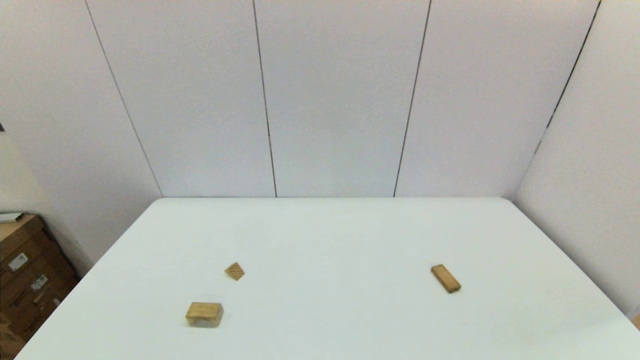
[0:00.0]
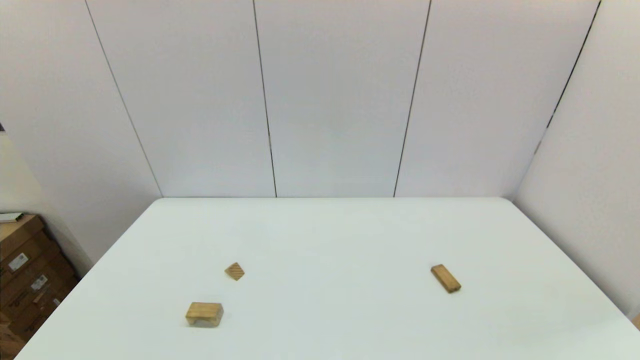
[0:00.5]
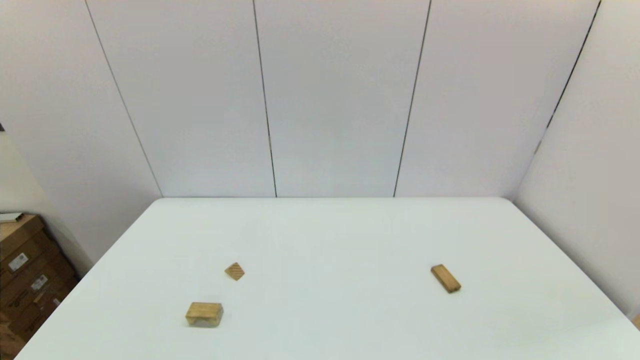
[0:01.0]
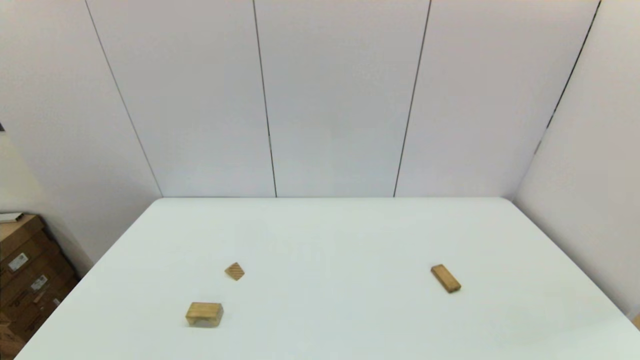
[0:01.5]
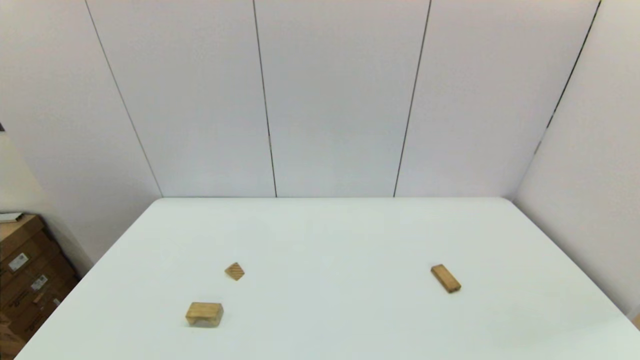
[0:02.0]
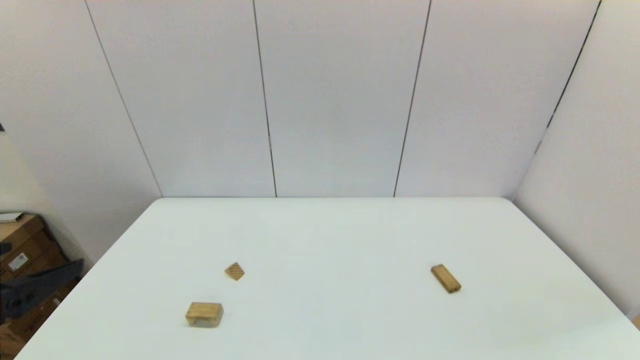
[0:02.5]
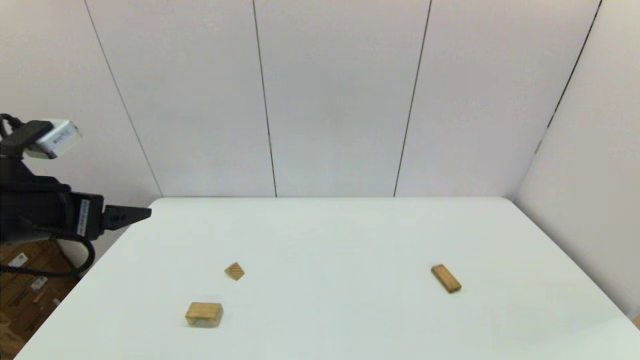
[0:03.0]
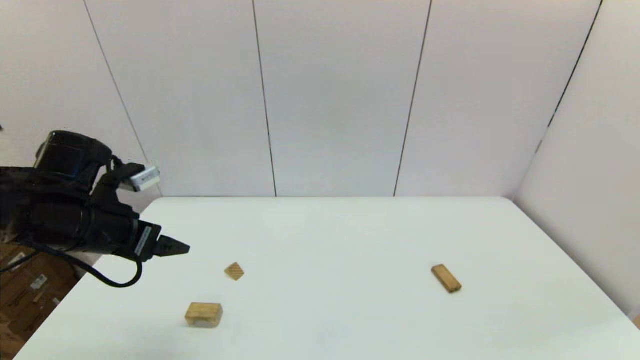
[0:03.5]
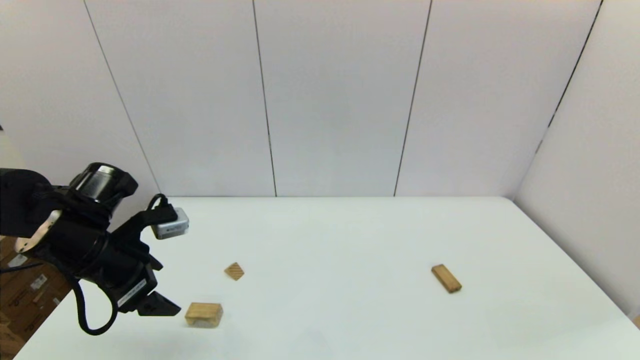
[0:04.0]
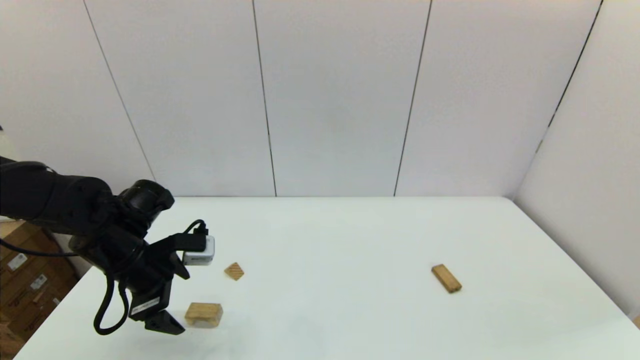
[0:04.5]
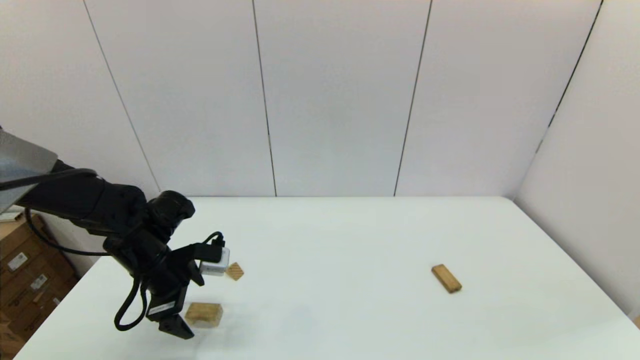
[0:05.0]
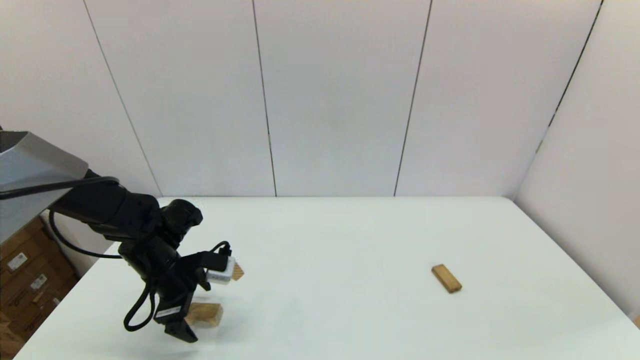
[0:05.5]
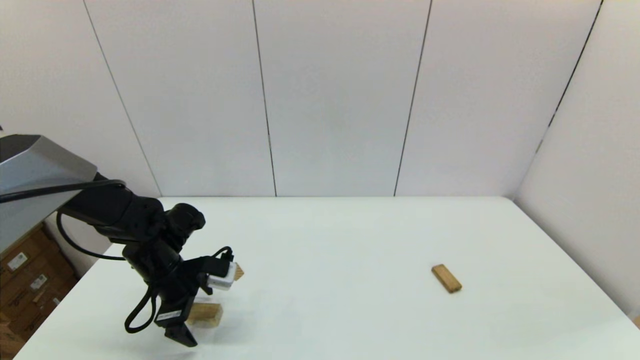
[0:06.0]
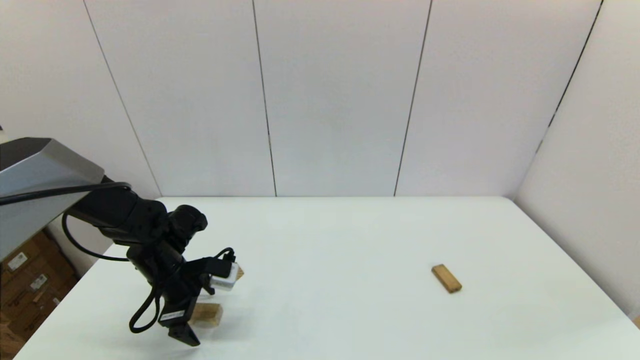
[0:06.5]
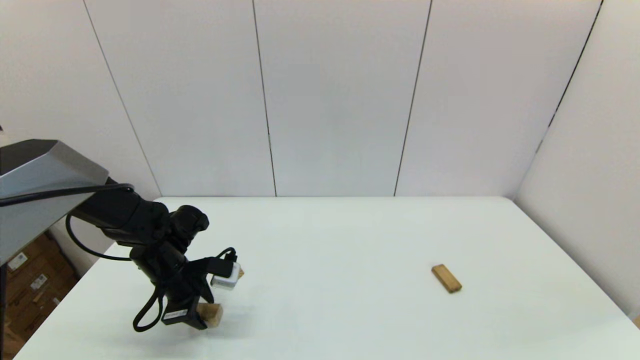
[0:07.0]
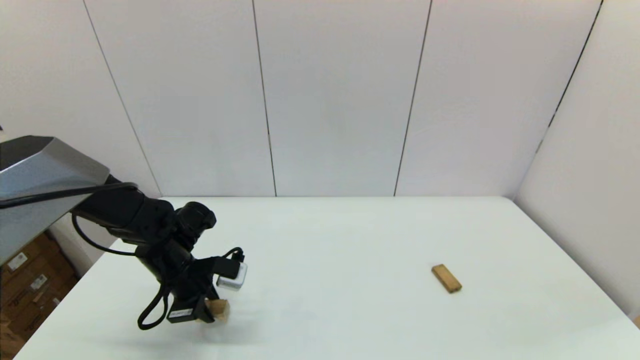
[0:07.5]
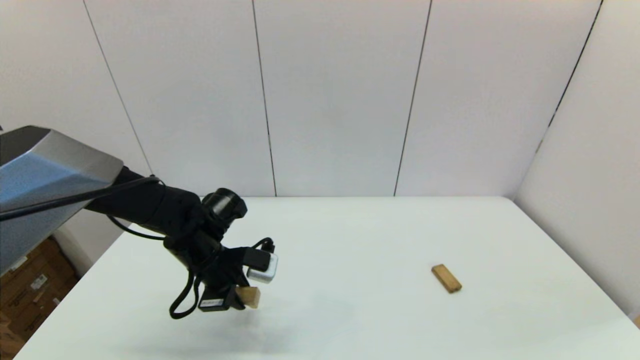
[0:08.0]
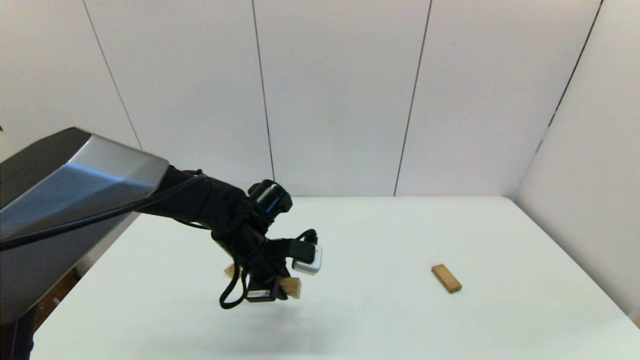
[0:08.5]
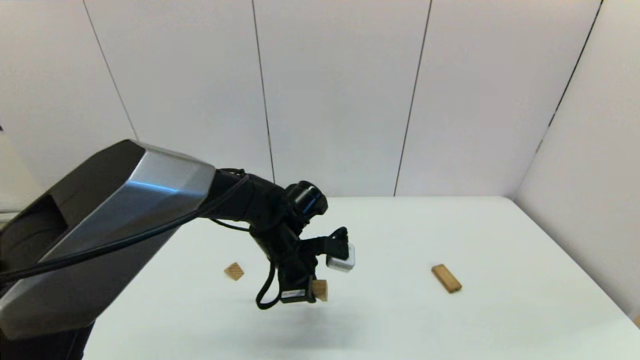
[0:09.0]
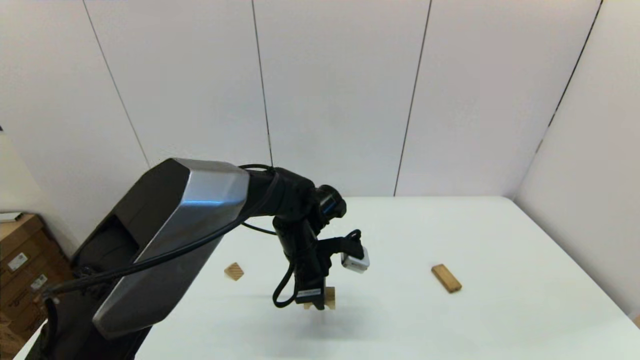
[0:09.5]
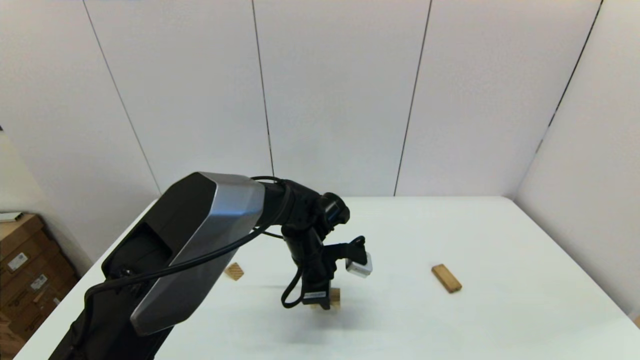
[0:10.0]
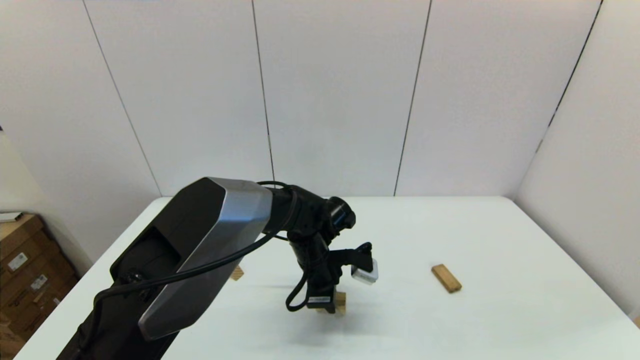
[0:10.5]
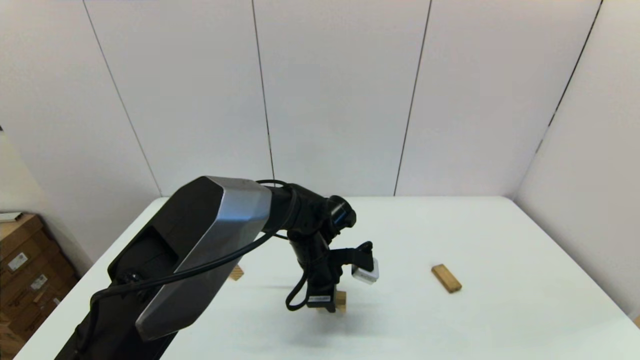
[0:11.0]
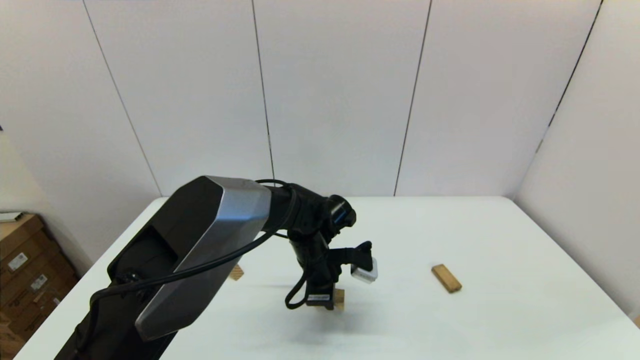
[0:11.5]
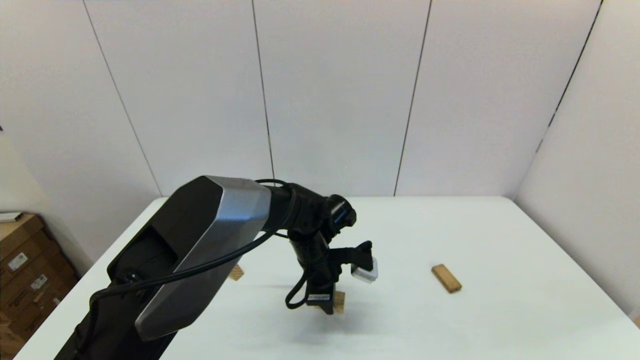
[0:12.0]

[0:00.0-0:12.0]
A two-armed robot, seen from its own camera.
Task of the whole recording: place the arched building blocks in the center of the table, set up the rectangular building blocks, and then set up the triangular building blocks.
Step, 0:02.5 to 0:07.0: Grasp the arch-shaped block with the left gripper.
Step, 0:07.5 to 0:12.0: Place the arch-shaped block in the center of view with the left gripper.
0:02.0 to 0:04.0: The left gripper moves forward, roughly 25 cm.
0:04.0 to 0:06.0: The left gripper is displaced downward and forward by roughly 10 cm.
0:06.0 to 0:08.0: The left gripper travels to the right by roughly 10 cm, and closes up.
0:08.0 to 0:10.0: The left gripper moves to the right, approximately 15 cm.
0:10.0 to 0:12.0: The two grippers keep their place.

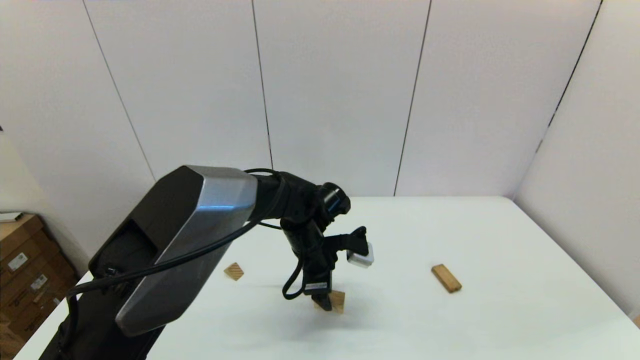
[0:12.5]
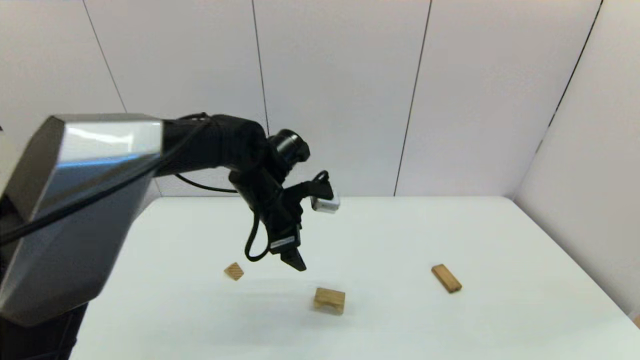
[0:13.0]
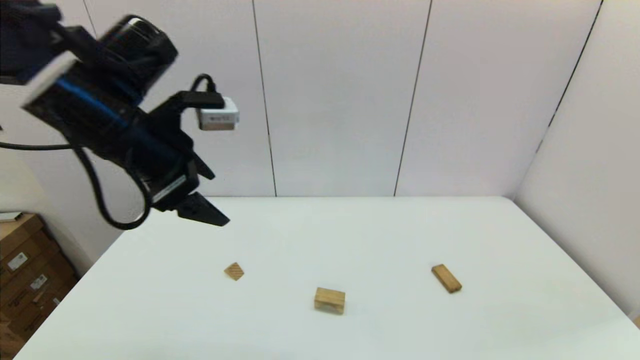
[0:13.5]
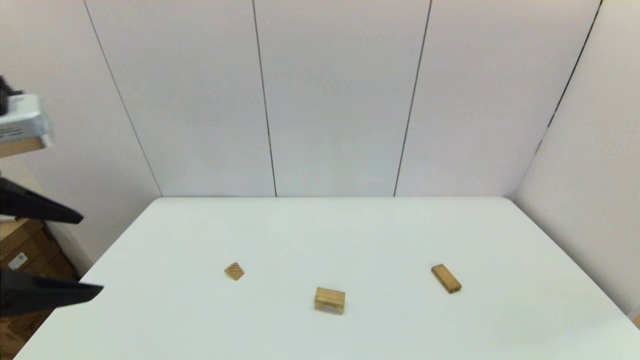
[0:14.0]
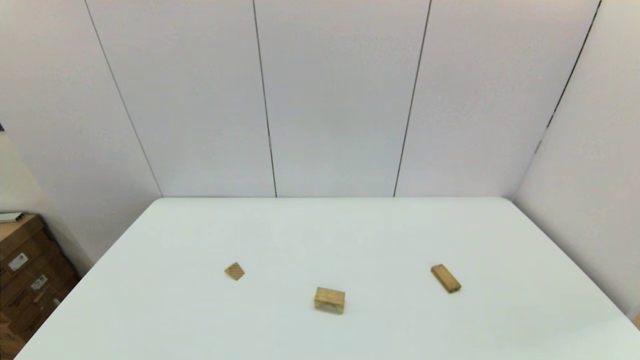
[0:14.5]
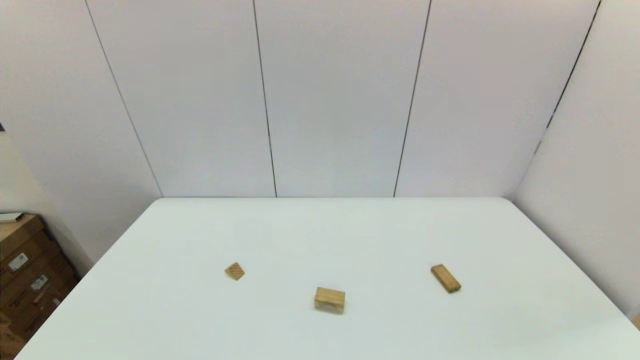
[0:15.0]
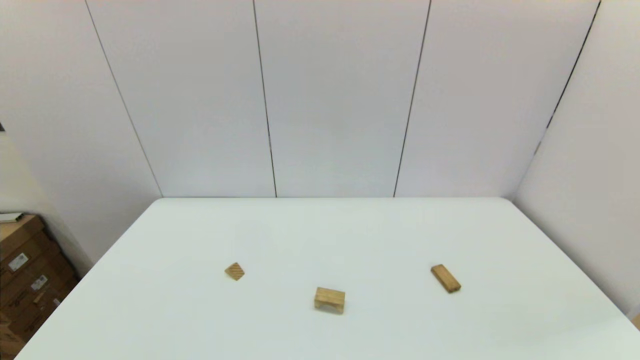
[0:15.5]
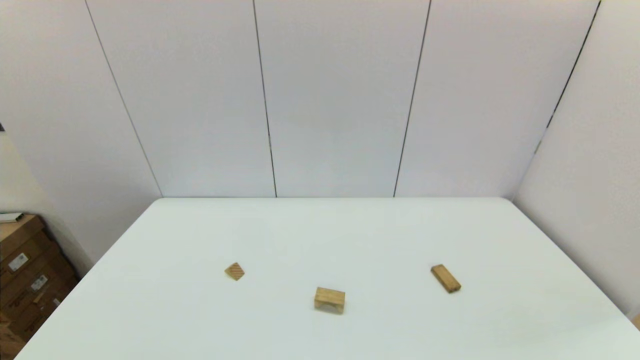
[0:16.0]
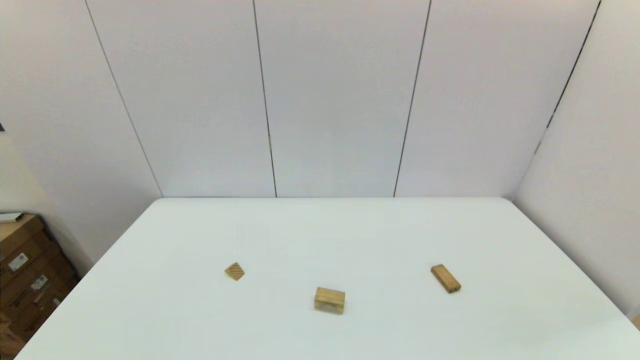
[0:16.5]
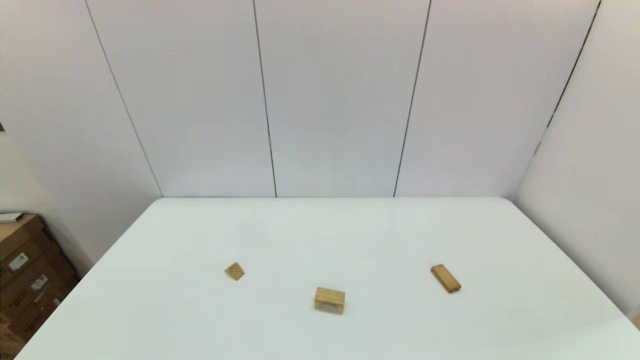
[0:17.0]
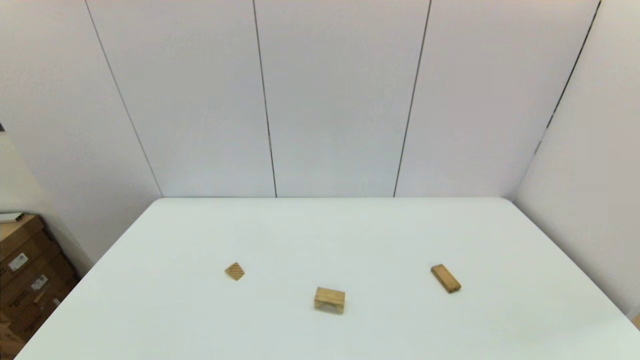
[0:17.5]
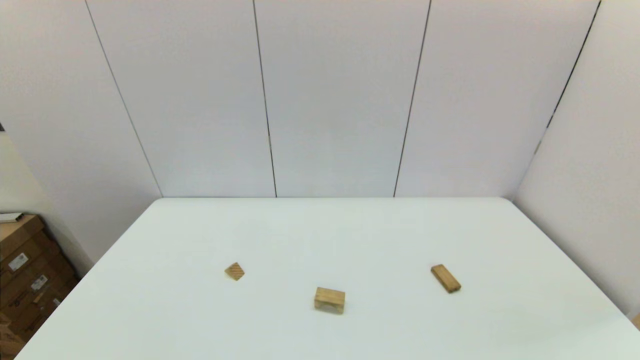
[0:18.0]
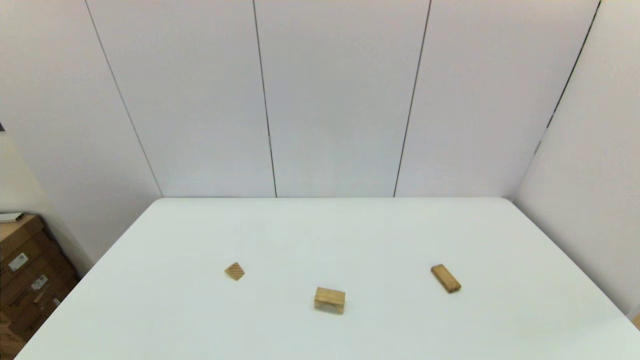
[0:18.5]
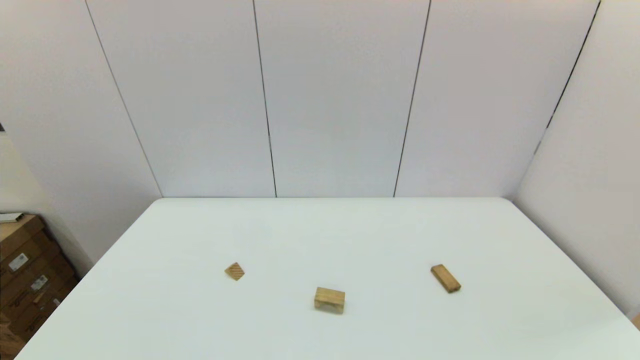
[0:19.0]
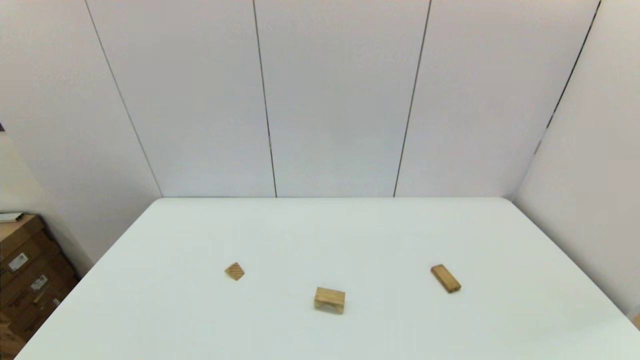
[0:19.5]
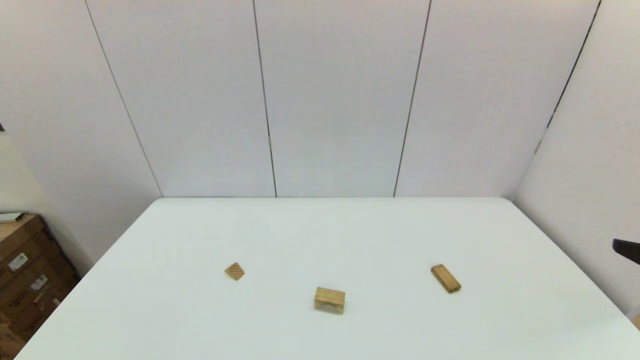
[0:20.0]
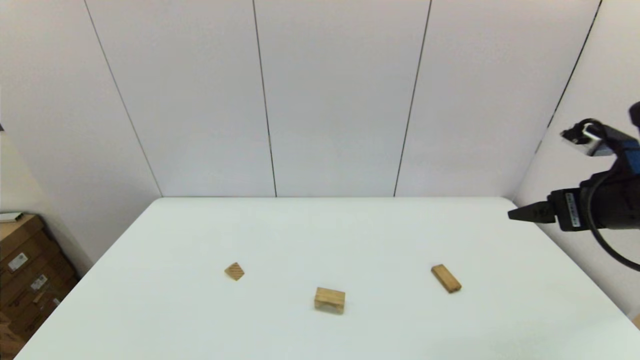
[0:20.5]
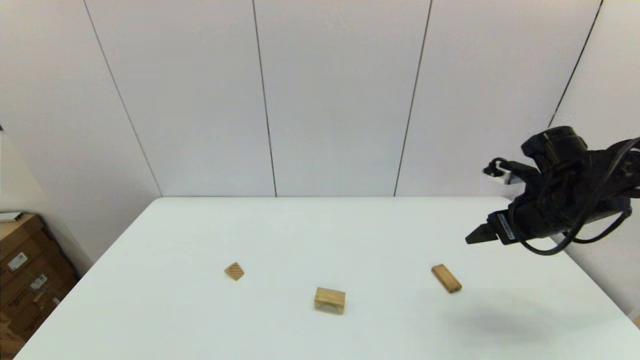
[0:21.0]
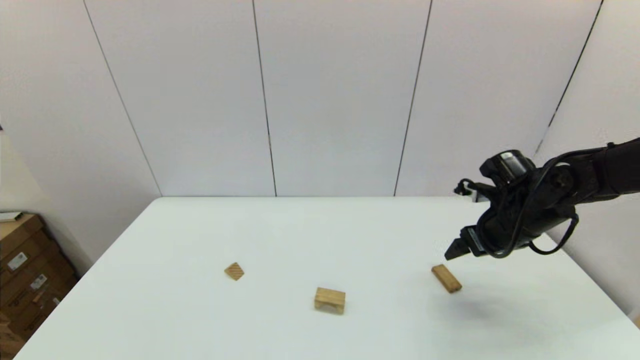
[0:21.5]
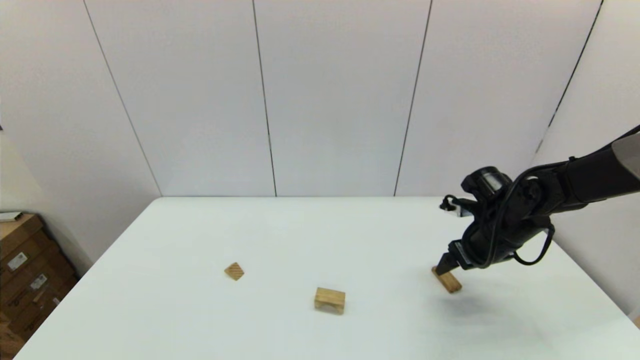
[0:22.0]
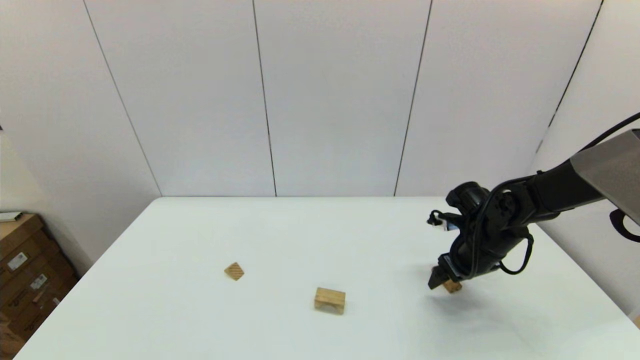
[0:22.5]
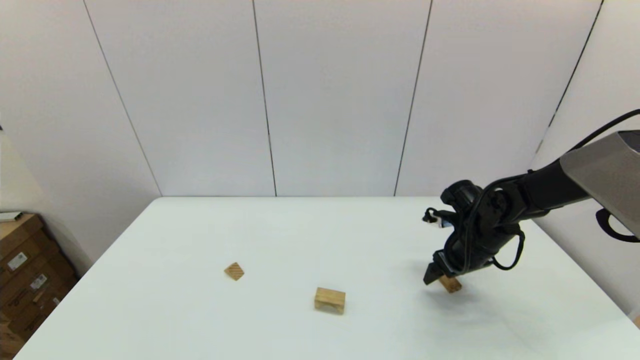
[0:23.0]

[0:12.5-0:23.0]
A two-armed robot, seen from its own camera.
Task of the whole recording: place the arched building blocks in the center of the table, set up the rectangular building blocks, and then set up the triangular building blocks.
0:12.5 to 0:14.5: The left gripper heads backward, to the left and upward, covering about 50 cm.
0:19.0 to 0:21.0: The right gripper heads forward, covering some 35 cm.
0:21.0 to 0:23.0: The right gripper travels downward and forward by approximately 15 cm.
